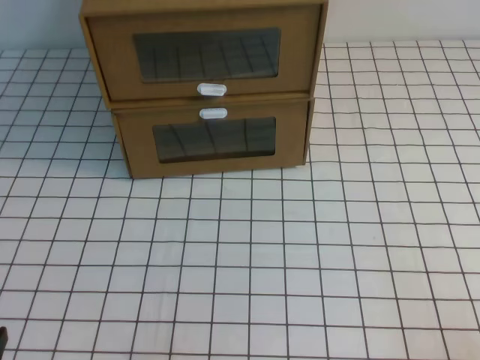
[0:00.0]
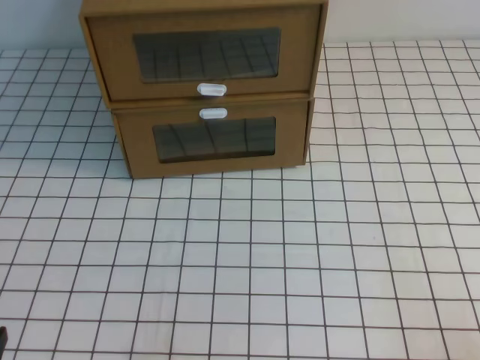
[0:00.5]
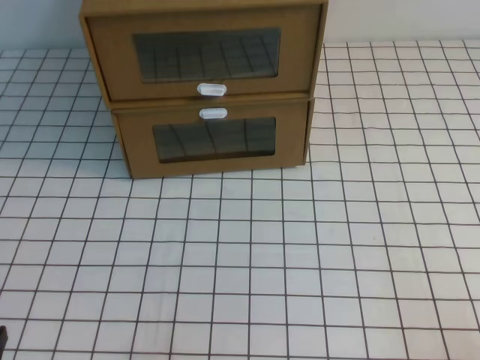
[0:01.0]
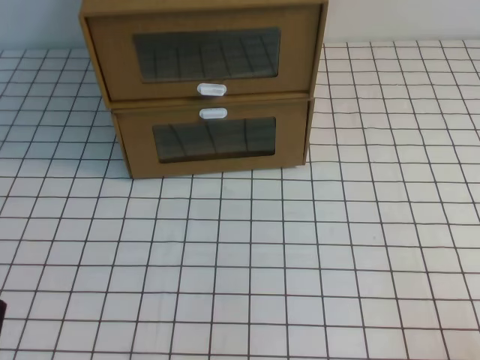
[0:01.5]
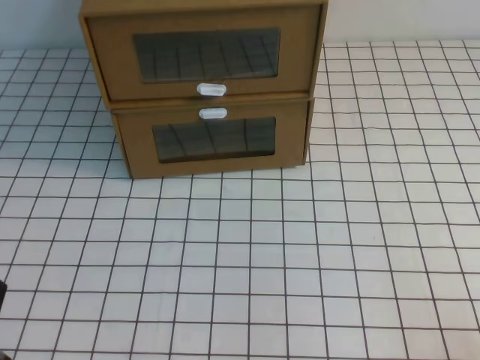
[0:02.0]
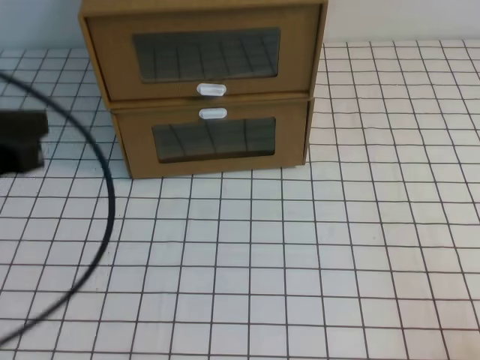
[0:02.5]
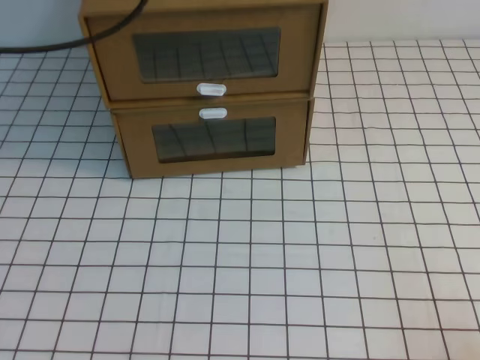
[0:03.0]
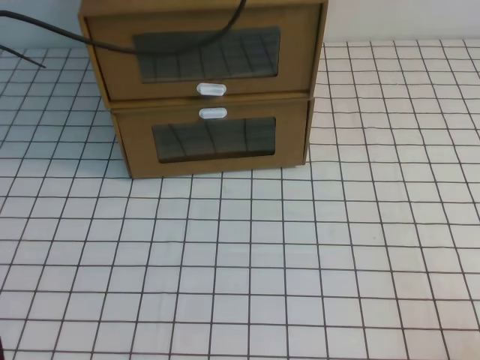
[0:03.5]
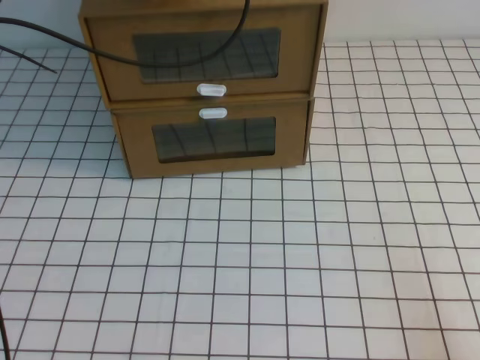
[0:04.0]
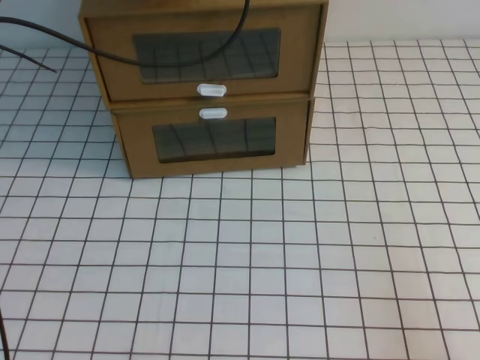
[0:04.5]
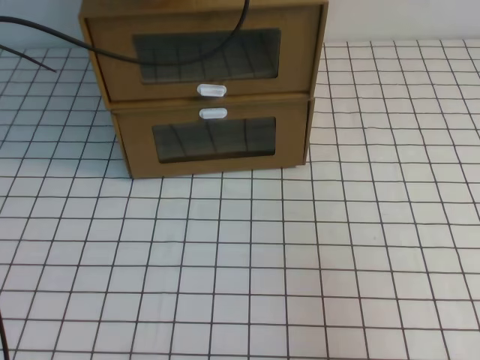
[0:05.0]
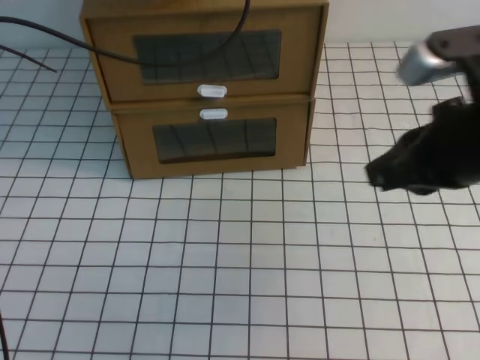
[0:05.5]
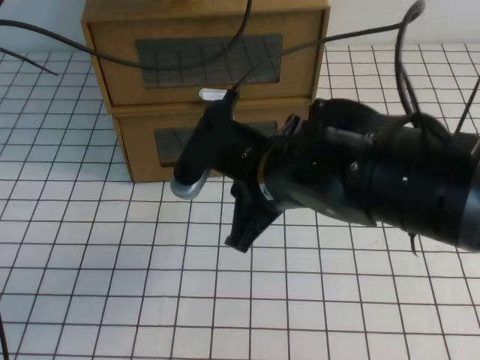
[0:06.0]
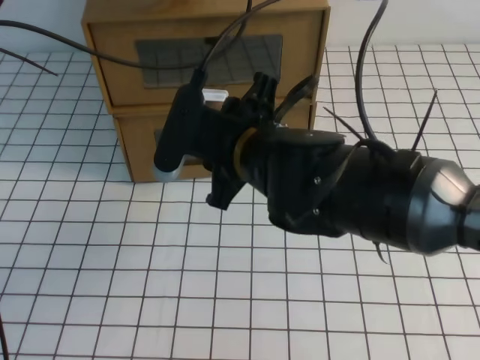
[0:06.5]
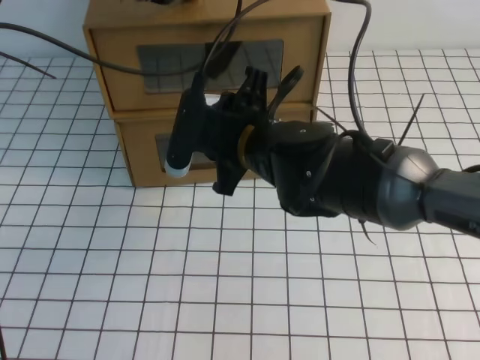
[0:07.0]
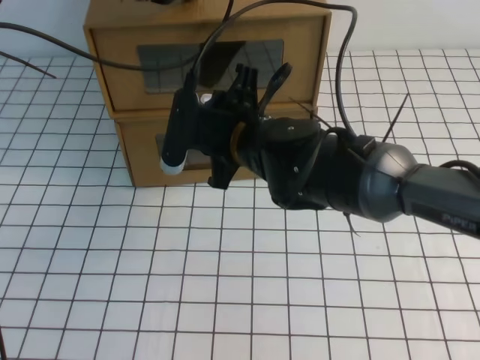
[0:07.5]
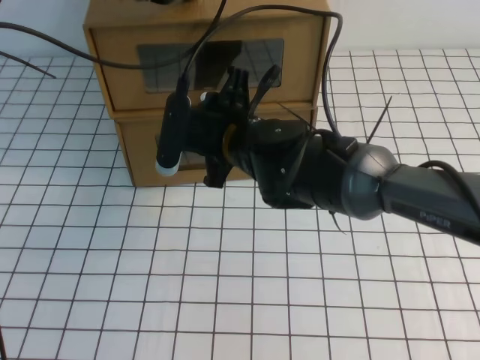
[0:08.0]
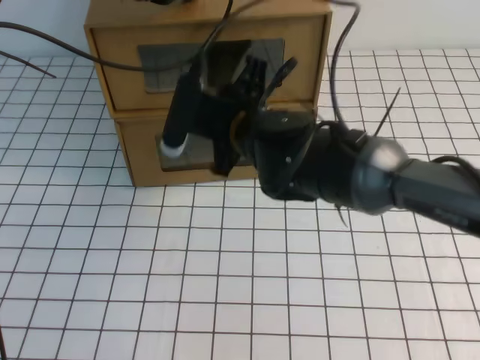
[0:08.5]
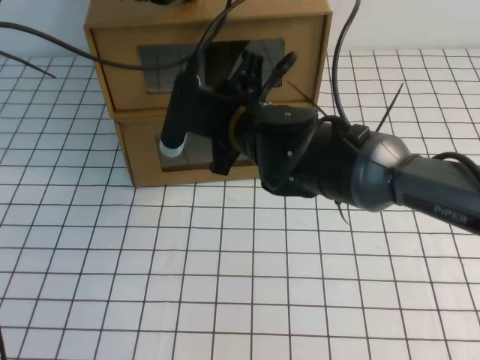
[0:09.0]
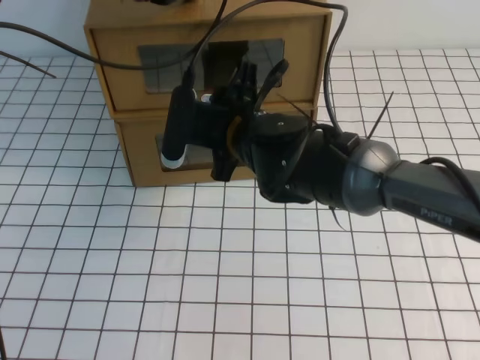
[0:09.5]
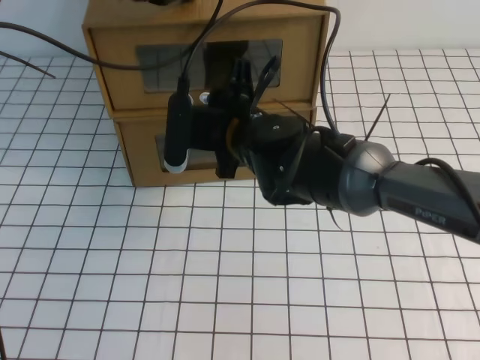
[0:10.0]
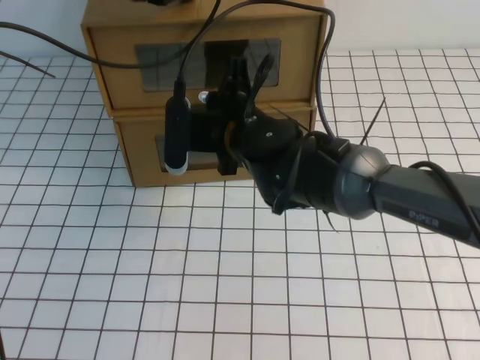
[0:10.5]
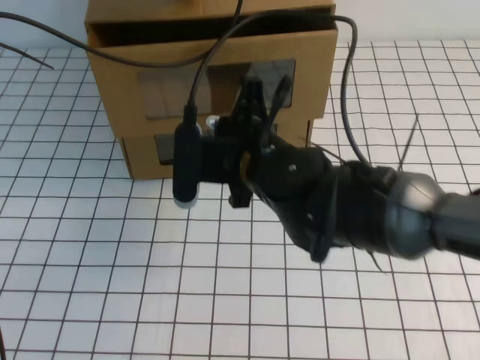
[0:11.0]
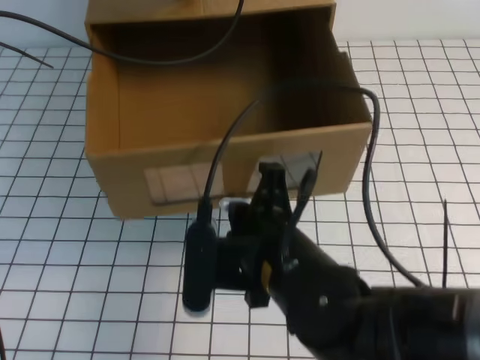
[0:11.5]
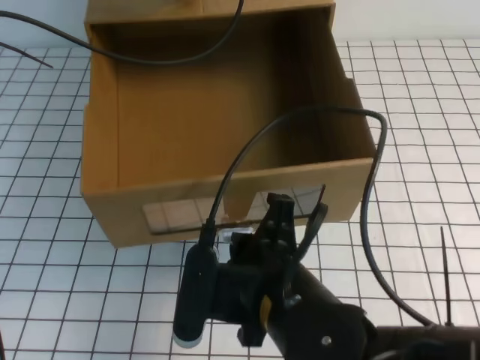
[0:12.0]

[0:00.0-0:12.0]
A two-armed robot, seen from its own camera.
Task of the whole recording: open the shoebox on the white tablecloth.
0:02.0 to 0:04.0: The left gripper moves forward and upward, about 40 cm.
0:04.0 to 0:06.0: The right gripper heads to the left, forward and upward, covering some 35 cm.
0:06.0 to 0:08.0: The right gripper moves forward and to the left, some 10 cm, and opens its fingers.
0:08.0 to 0:10.0: There are only small adjustments of the grippers.
0:10.0 to 0:12.0: The right gripper moves backward, some 20 cm, and closes up.

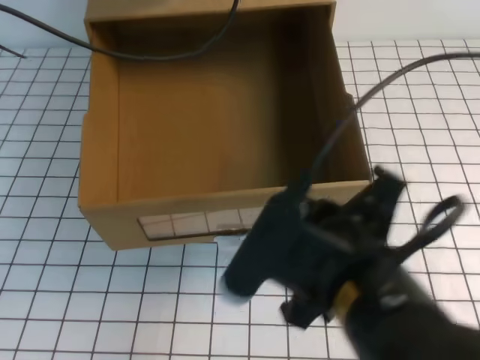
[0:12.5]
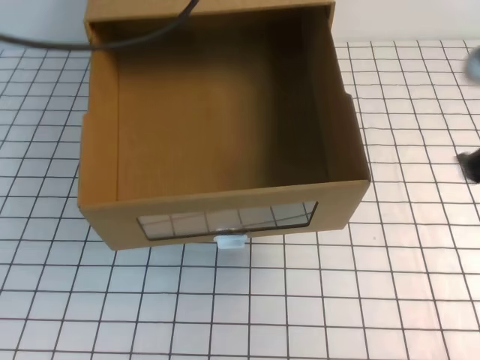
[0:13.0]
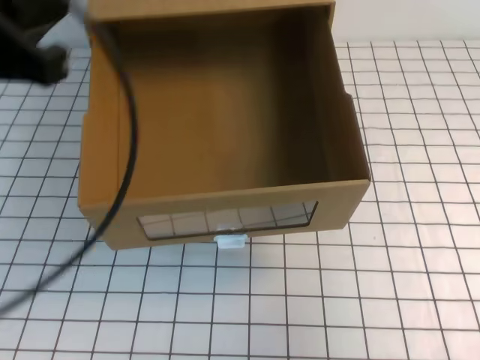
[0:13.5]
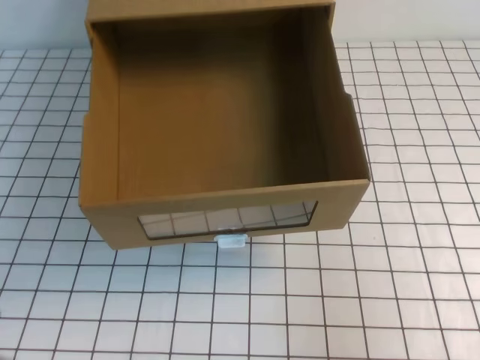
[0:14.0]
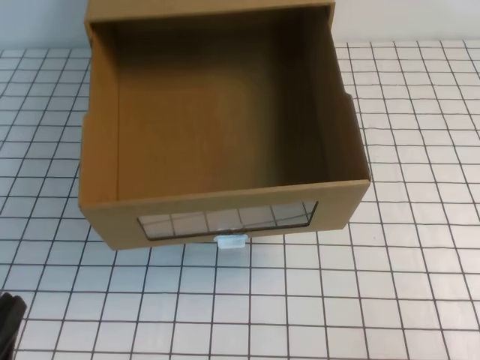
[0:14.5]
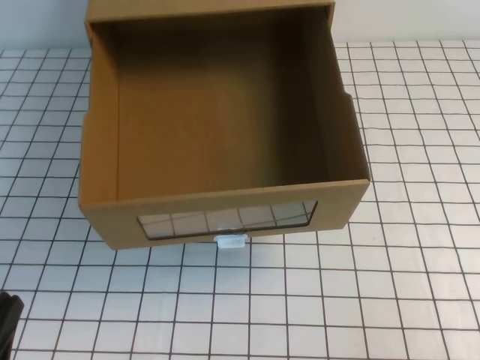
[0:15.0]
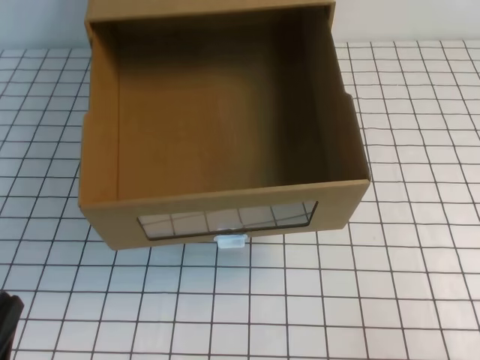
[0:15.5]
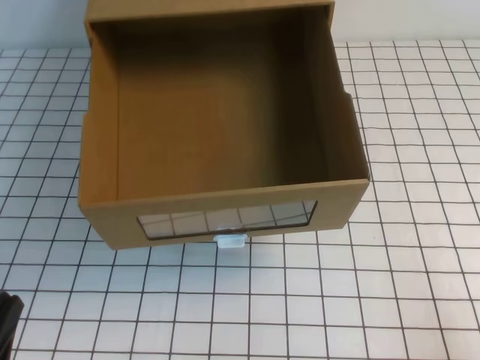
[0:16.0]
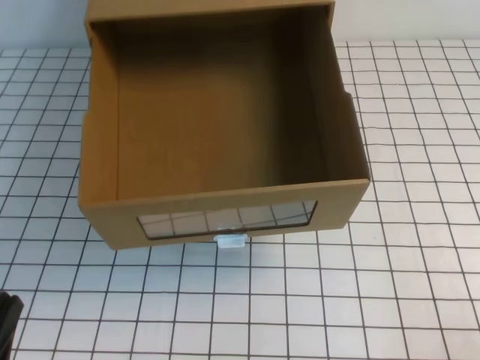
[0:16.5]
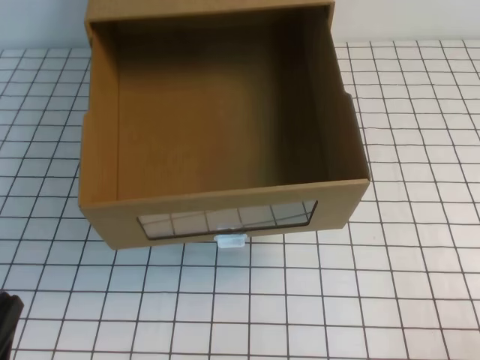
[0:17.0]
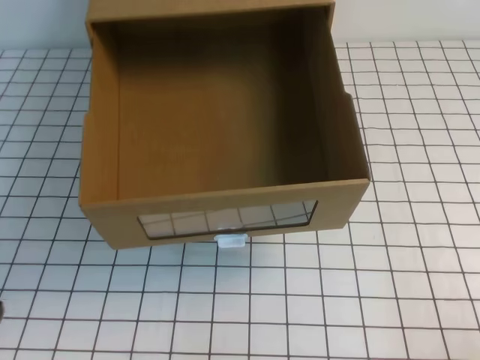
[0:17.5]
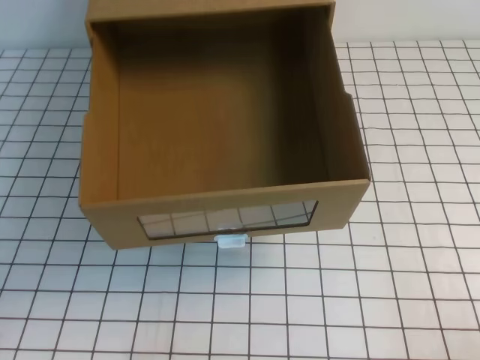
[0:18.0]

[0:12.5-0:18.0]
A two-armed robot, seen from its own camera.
Task of the whole recording: open the shoebox on the white tablecloth.
Step, 0:12.5 to 0:18.0: Open the shoe box.
0:12.5 to 0:14.5: The right gripper is displaced to the right by about 20 cm, and closes up; the left gripper goes roughly 40 cm backward and downward.
0:14.5 to 0:16.0: The right gripper shifts roughly 5 cm downward.

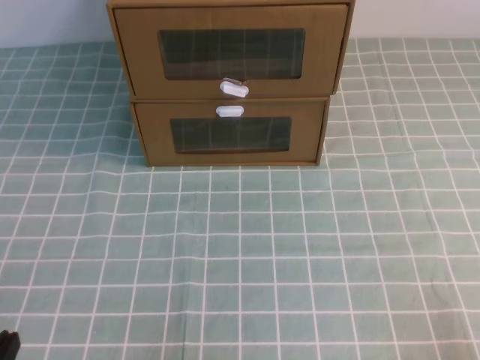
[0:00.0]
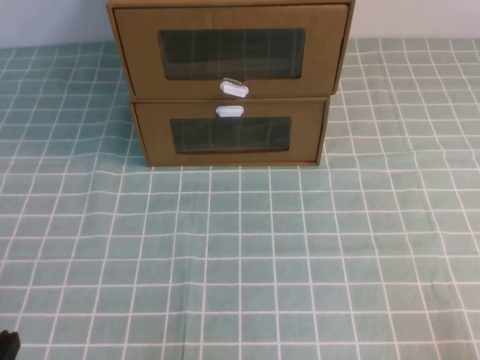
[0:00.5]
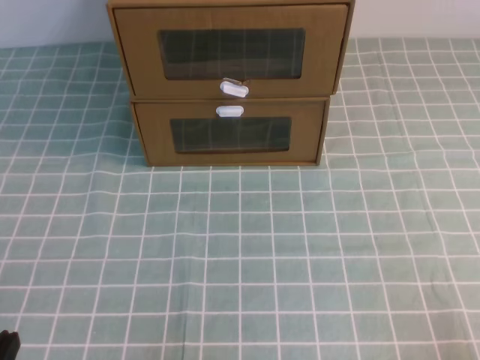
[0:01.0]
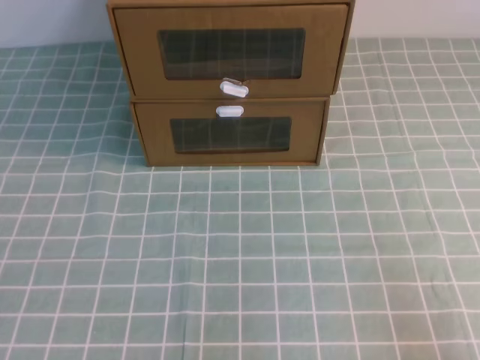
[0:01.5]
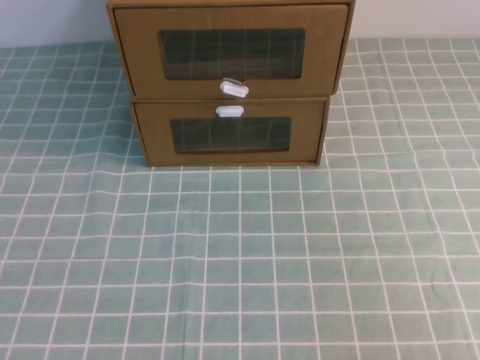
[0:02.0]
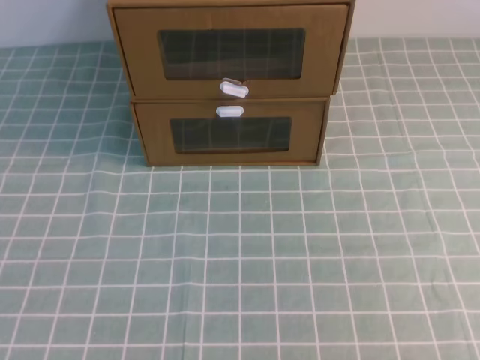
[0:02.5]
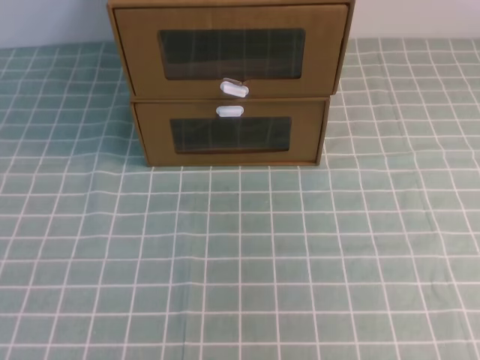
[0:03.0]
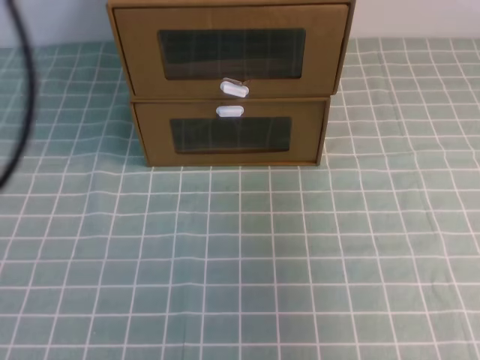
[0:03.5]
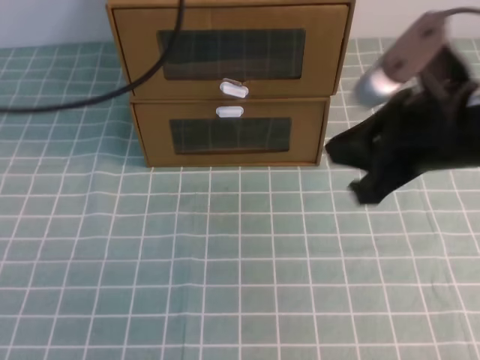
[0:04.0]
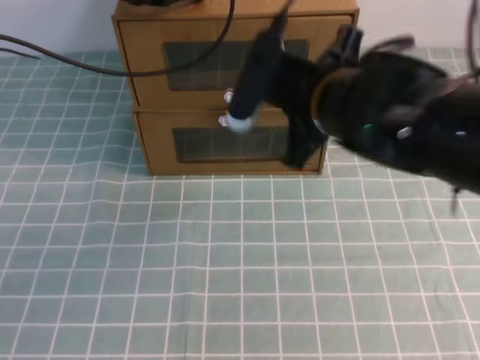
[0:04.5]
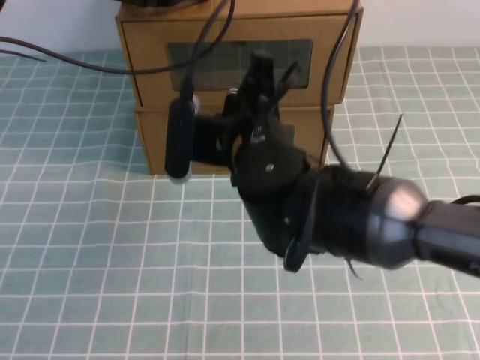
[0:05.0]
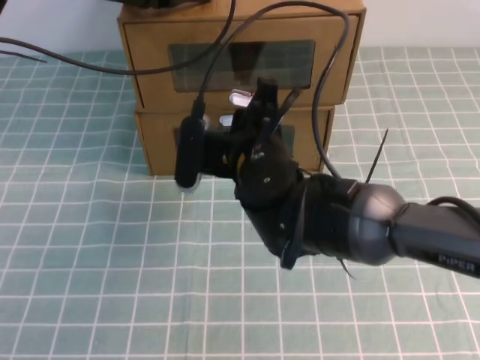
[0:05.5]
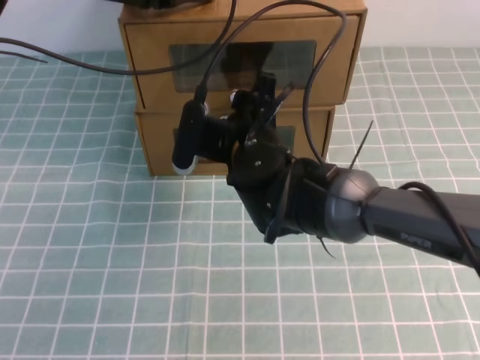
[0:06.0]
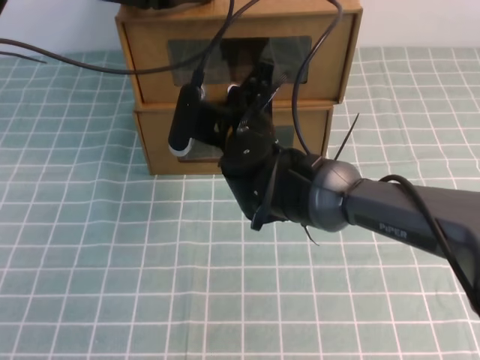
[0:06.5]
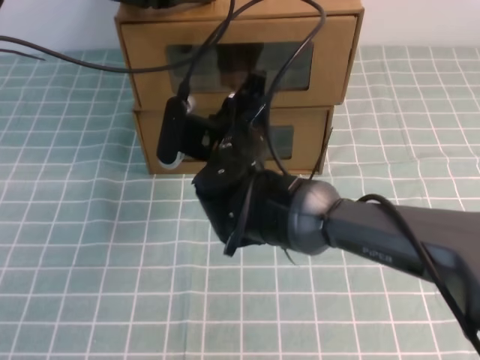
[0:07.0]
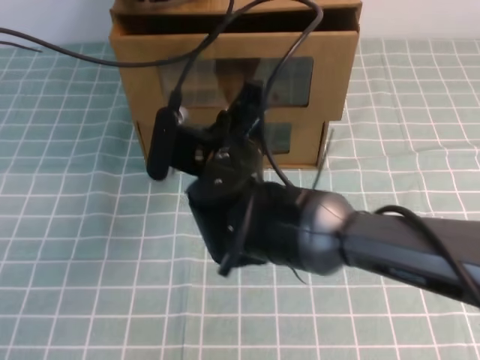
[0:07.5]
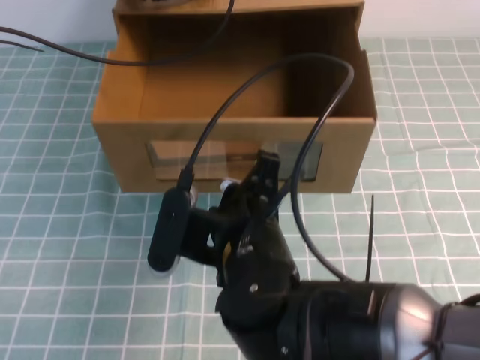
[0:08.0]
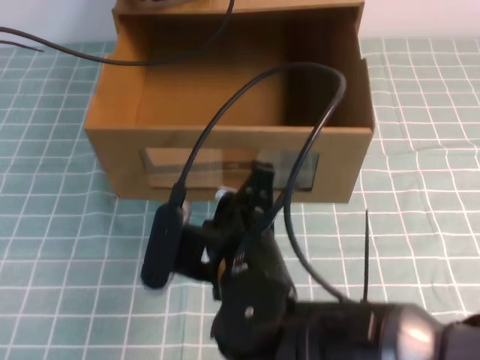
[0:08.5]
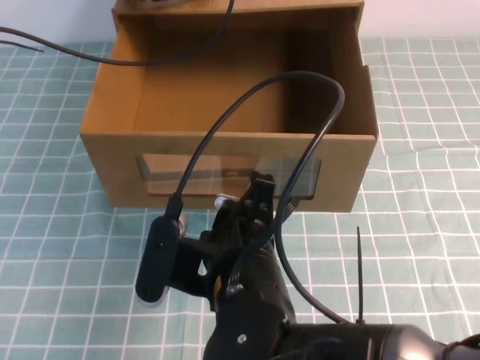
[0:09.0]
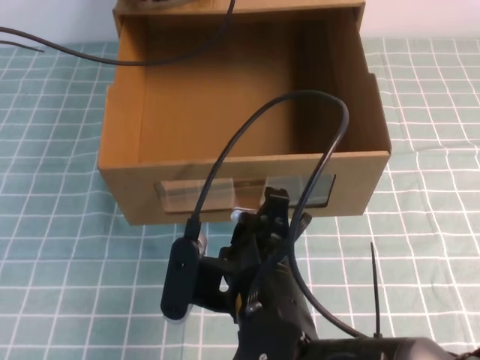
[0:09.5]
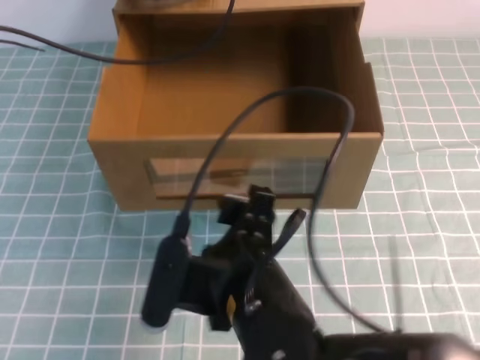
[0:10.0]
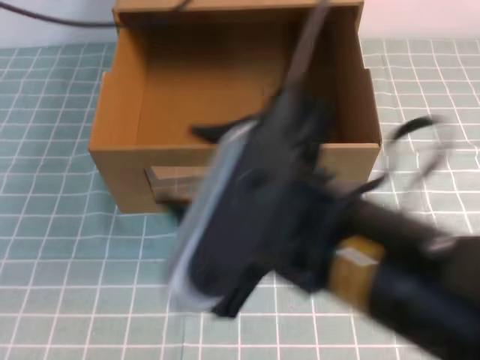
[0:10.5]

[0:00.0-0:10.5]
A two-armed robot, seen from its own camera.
Task of the whole recording: open the shoebox on the cyan tablecloth.
0:02.0 to 0:04.0: The left gripper moves forward and upward, some 35 cm; the right gripper heads forward and to the left, covering roughly 25 cm.
0:04.0 to 0:06.5: The left gripper moves forward and downward, about 15 cm. Meanwhile the right gripper goes about 25 cm to the left, forward and downward, and opens, then closes again.
0:06.5 to 0:08.5: The right gripper goes roughly 20 cm backward.
0:08.5 to 0:10.5: The right gripper goes some 15 cm upward, backward and to the right, and opens its fingers. The left gripper moves upward and backward, some 10 cm.
